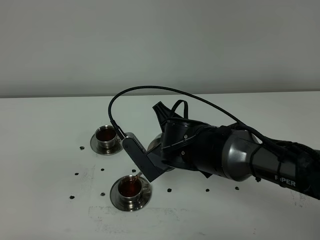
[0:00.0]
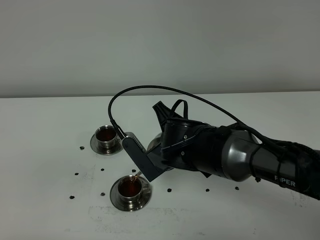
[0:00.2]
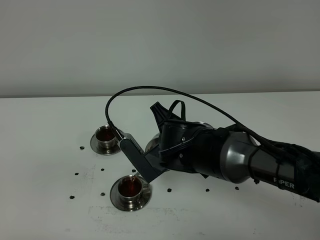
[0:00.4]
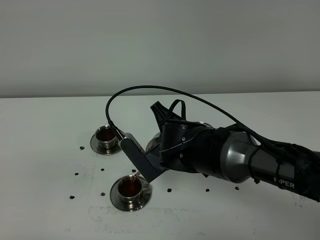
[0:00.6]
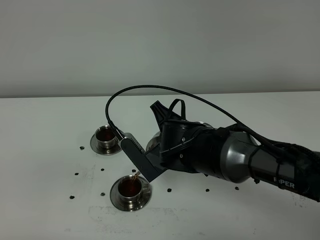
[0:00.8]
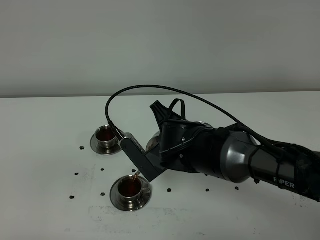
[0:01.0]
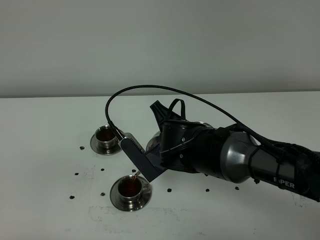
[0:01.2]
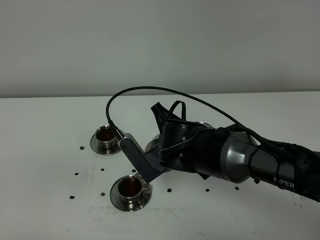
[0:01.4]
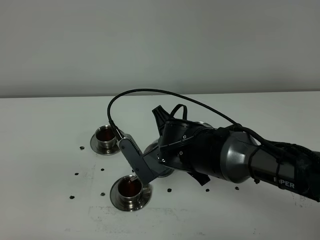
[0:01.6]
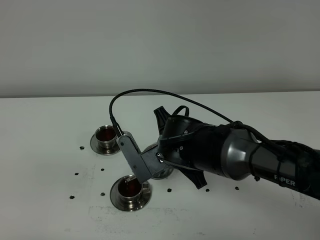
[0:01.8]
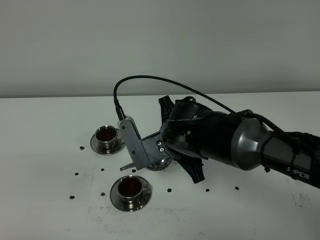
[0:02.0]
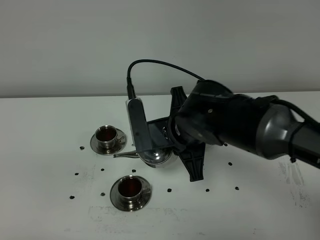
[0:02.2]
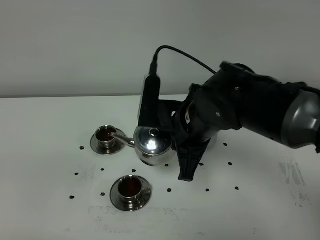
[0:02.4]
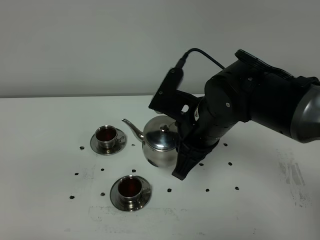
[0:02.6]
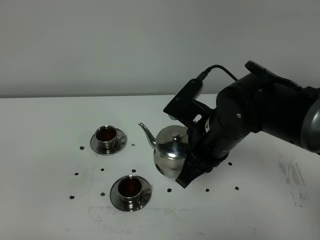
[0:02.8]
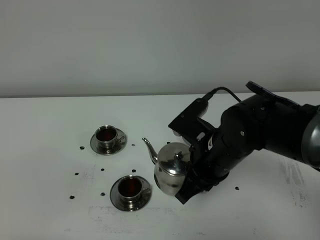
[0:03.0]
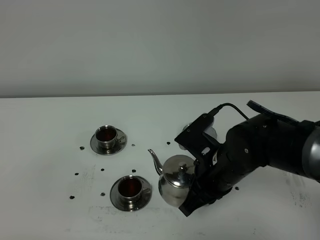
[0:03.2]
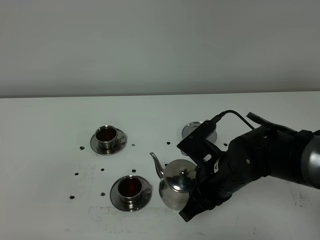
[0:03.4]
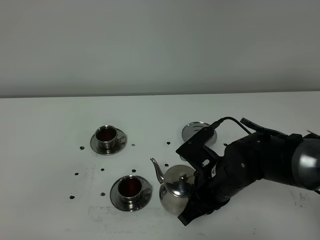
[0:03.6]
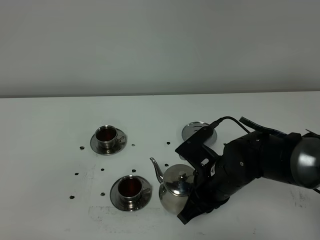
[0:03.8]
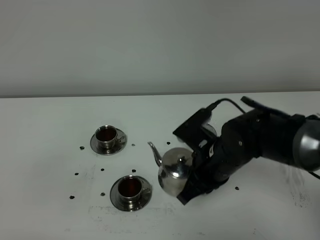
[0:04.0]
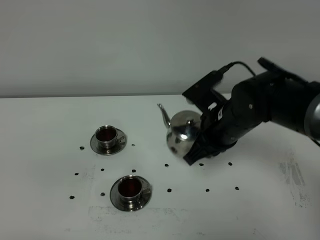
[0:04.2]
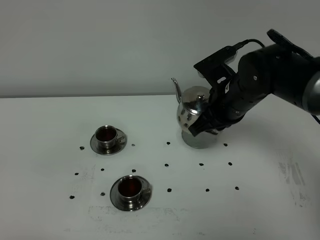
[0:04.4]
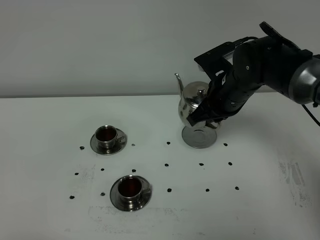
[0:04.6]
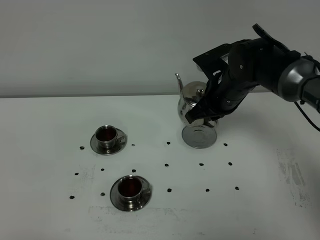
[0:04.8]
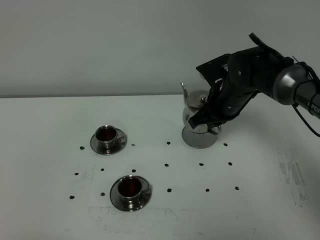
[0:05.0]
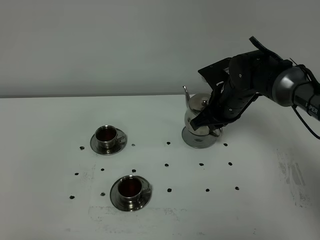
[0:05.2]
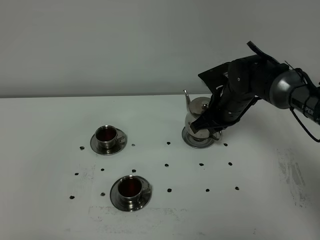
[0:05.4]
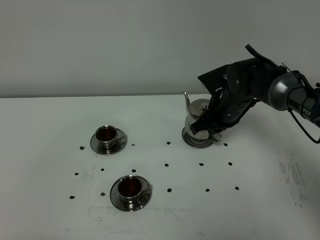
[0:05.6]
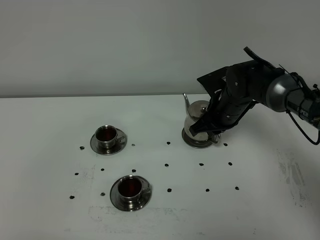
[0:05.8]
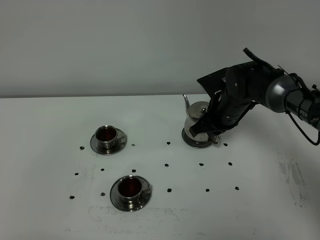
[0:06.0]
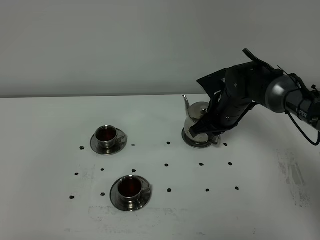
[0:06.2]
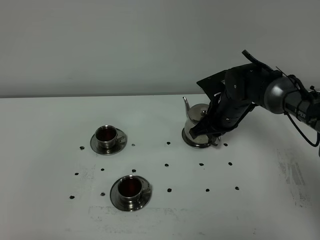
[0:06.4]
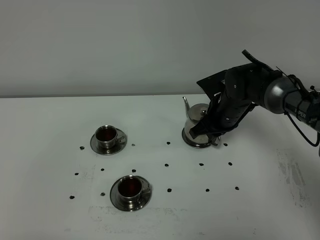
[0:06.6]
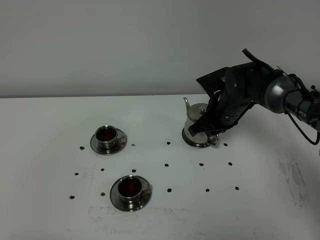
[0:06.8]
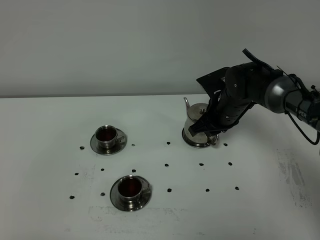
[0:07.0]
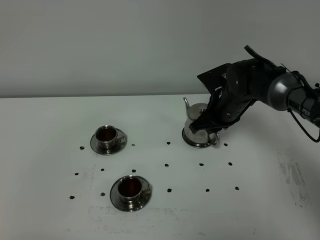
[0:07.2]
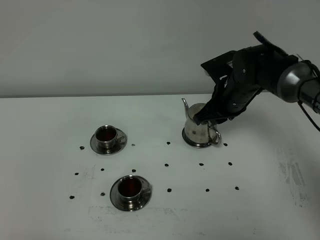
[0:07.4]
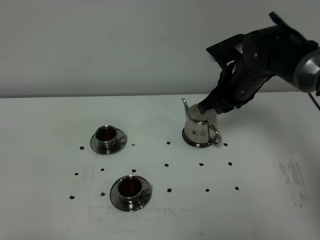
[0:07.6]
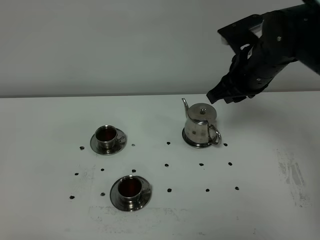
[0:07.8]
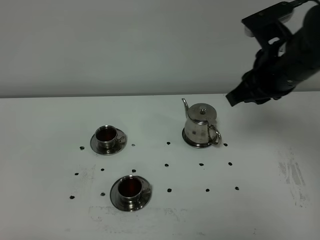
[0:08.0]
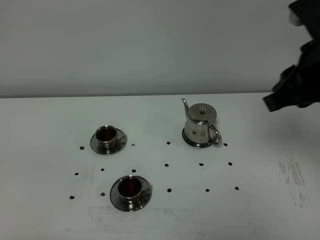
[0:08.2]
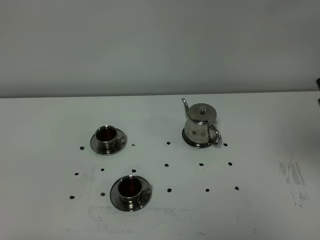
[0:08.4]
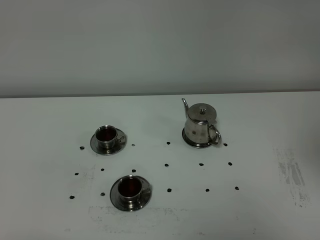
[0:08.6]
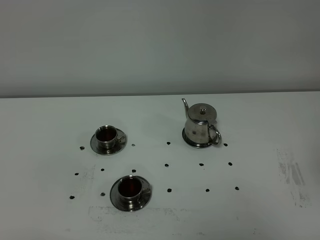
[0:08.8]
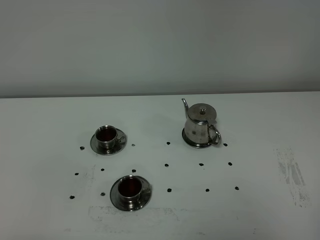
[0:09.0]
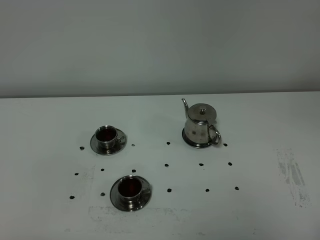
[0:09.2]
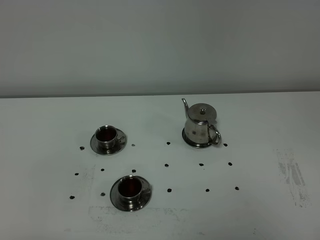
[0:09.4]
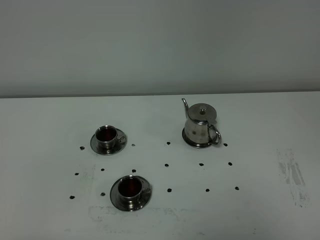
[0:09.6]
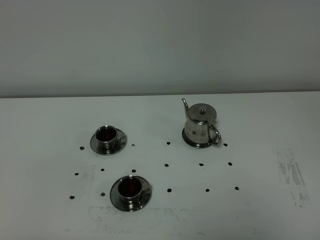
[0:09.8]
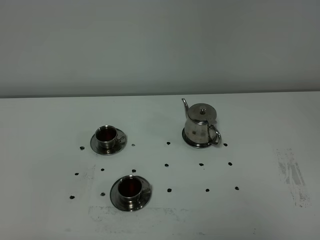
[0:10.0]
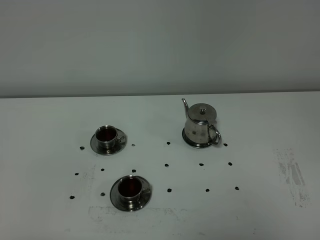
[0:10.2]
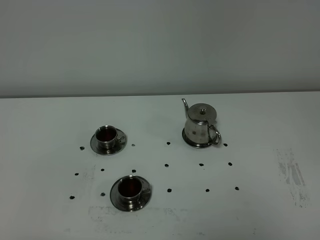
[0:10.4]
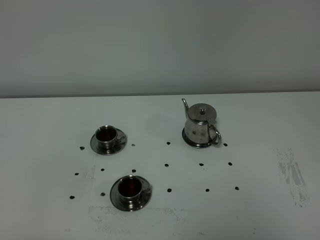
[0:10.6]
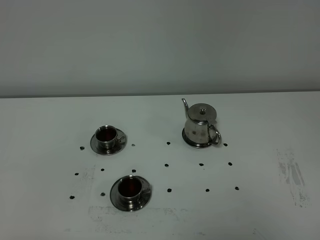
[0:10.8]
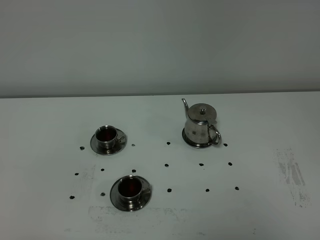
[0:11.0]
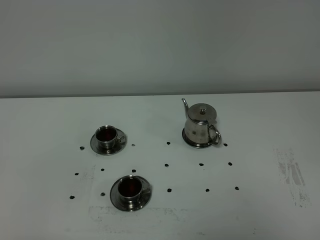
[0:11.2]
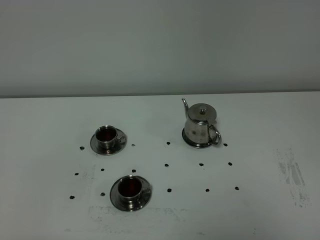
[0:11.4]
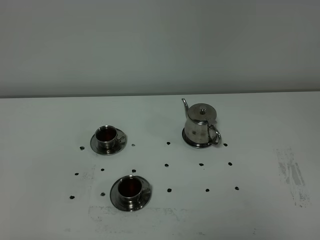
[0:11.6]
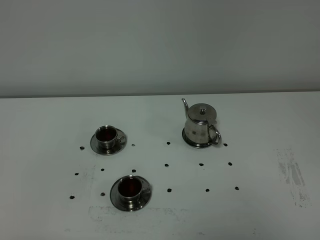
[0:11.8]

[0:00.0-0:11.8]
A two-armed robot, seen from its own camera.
Task of the whole recording: grasp the stainless steel teapot and pour the tea into the two stainless steel teacups one by one, put the stainless steel teapot back in its original place.
0:00.0 to 0:01.4: Both grippers stay about where they are.
0:01.4 to 0:03.0: The right gripper moves to the right, approximately 5 cm.
0:03.0 to 0:04.4: The right gripper is displaced forward by some 10 cm.
0:04.4 to 0:06.0: The right gripper moves downward and forward, roughly 10 cm.
0:06.0 to 0:07.4: The right gripper shifts by about 5 cm, and opens its fingers.
0:07.4 to 0:08.8: The right gripper travels backward, upward and to the right by some 40 cm.
0:10.4 to 0:11.8: Both grippers stay put.

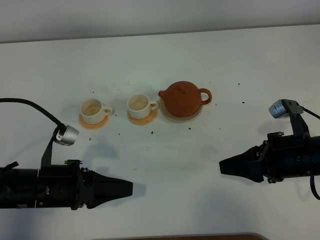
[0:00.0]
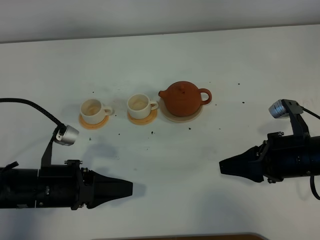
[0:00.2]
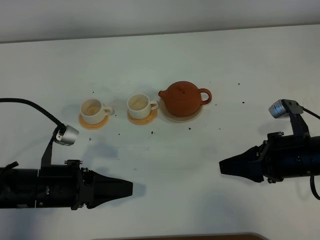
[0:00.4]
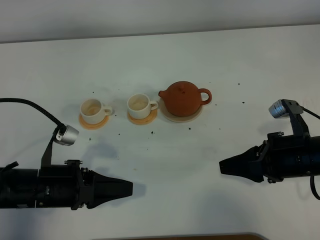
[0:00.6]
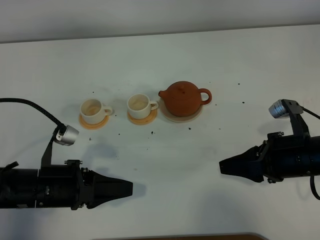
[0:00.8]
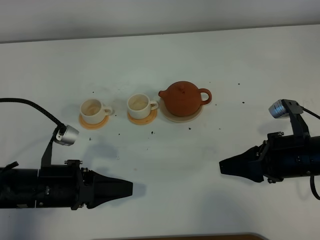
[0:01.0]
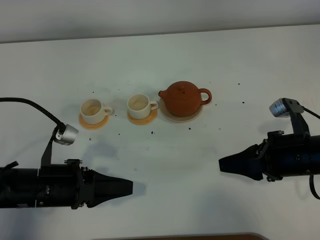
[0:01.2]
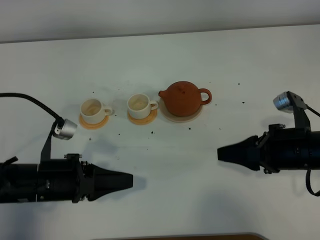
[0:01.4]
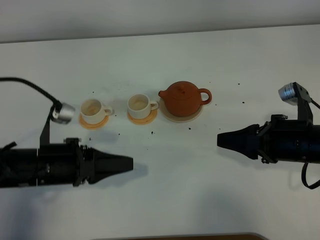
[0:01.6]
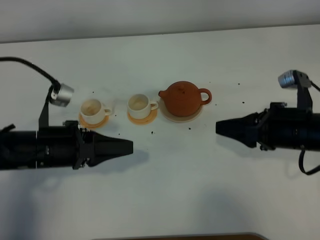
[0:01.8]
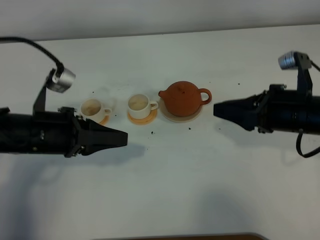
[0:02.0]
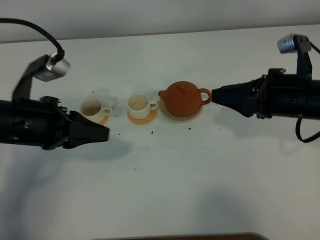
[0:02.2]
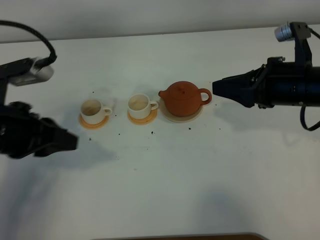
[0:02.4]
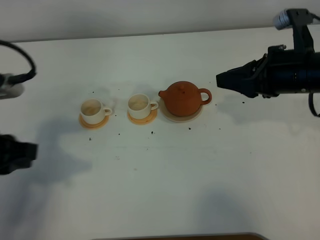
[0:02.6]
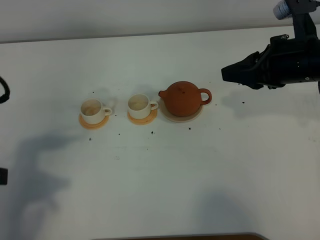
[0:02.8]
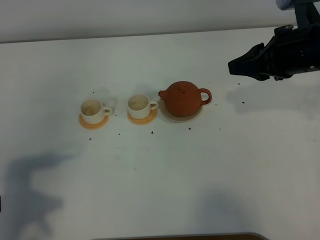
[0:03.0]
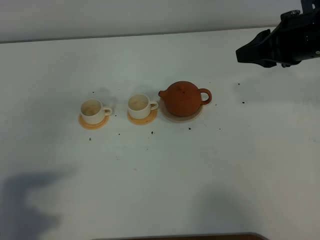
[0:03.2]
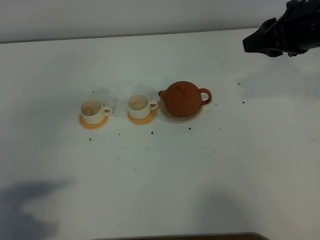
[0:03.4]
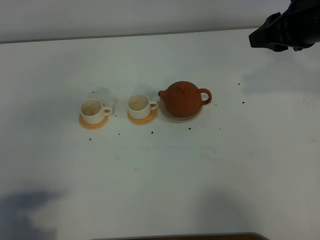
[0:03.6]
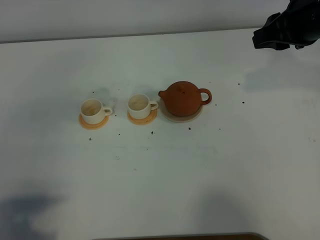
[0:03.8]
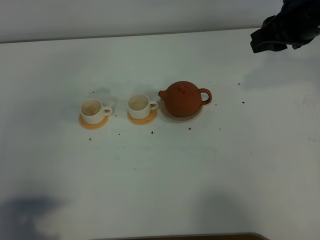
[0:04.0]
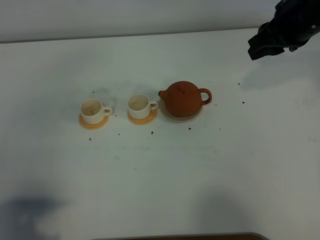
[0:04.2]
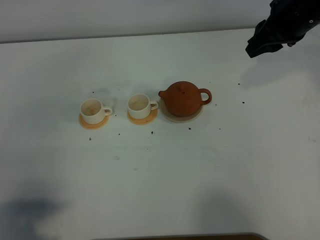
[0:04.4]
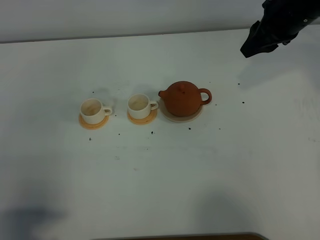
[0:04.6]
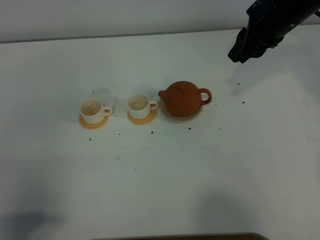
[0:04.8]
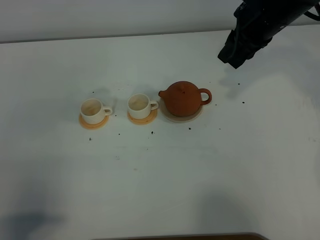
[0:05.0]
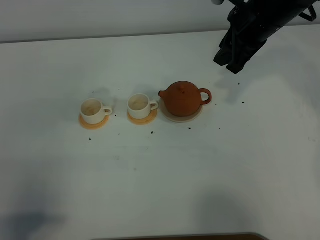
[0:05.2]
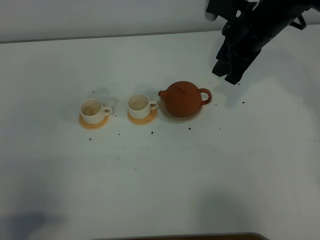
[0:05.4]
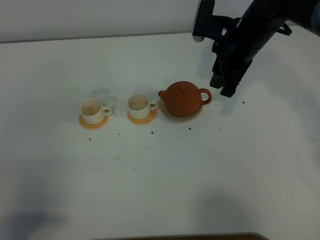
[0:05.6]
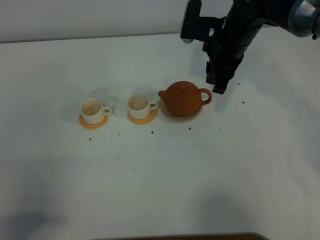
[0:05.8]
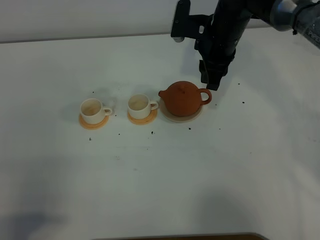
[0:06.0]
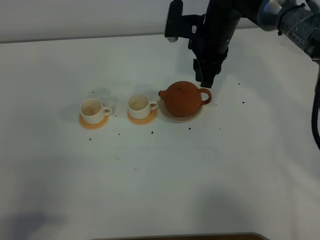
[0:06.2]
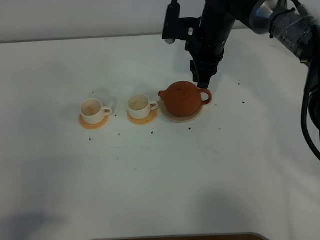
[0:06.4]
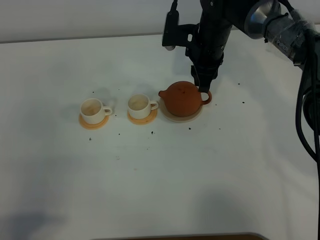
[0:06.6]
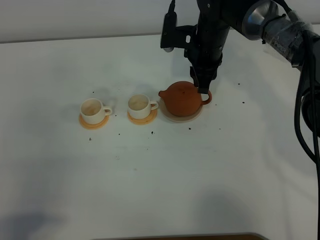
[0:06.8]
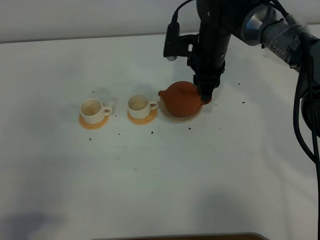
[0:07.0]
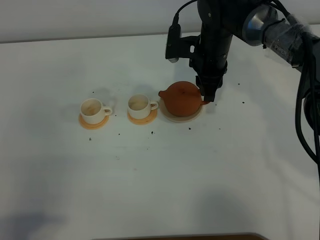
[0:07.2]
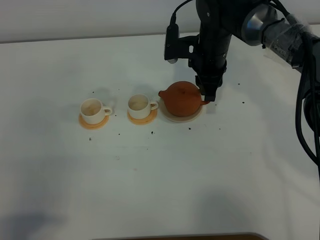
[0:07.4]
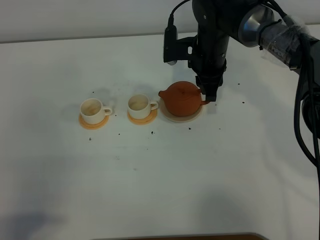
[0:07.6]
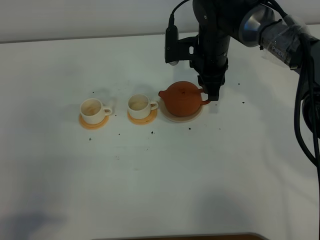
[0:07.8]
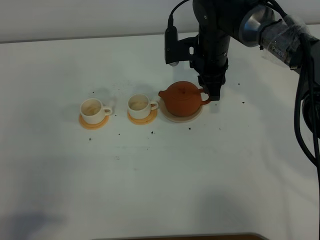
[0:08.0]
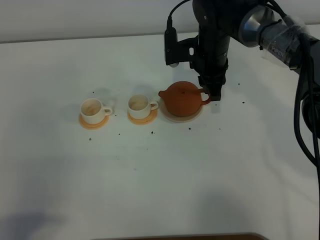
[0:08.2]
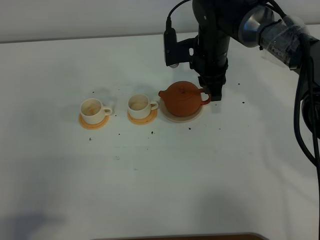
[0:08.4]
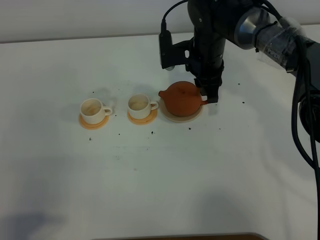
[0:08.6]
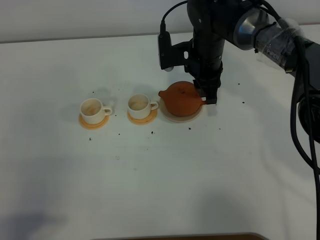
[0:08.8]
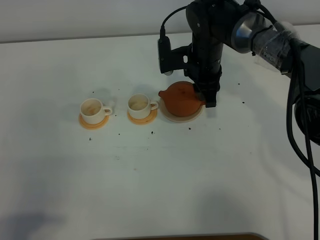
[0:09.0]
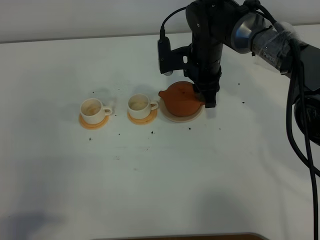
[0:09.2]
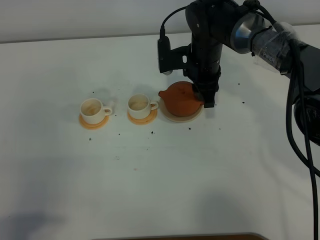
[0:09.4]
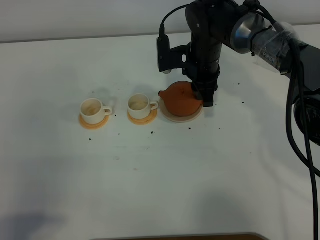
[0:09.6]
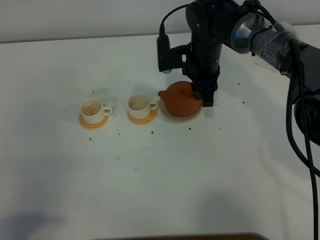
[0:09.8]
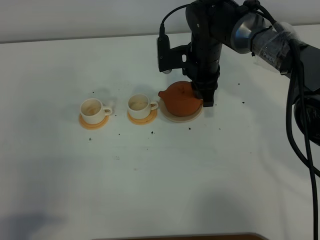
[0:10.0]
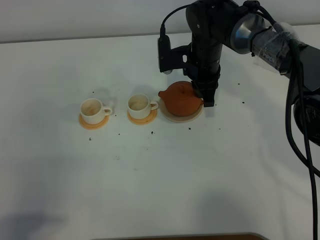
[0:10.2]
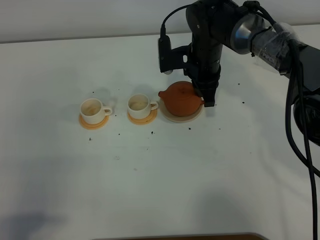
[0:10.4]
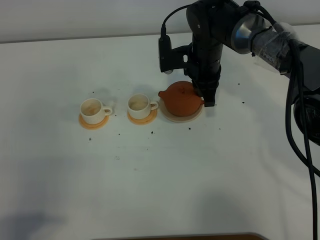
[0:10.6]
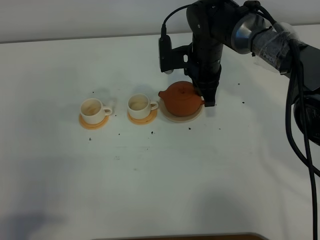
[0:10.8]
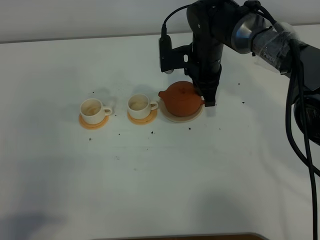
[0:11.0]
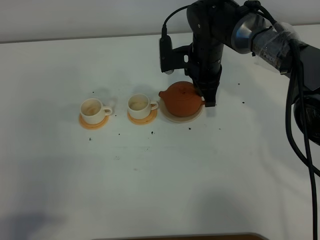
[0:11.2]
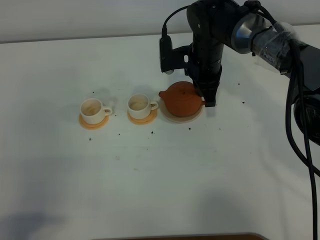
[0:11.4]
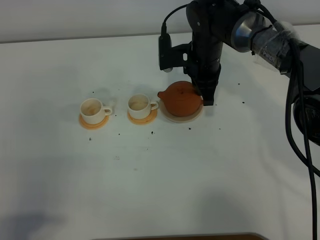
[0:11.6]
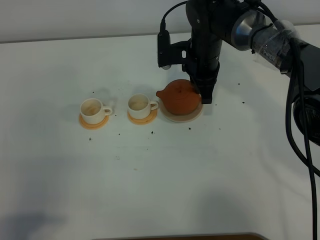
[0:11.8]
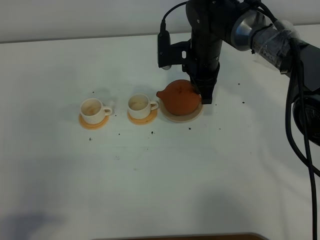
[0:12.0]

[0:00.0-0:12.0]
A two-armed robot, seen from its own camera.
Task of the whole recording: grasp the brown teapot and pour the tea into the two white teacups one by one, put the brown teapot back in its original place.
0:00.0 to 0:01.6: The grippers stay close to where they were, moving slightly.
0:01.6 to 0:03.0: The left gripper shifts about 15 cm upward, backward and to the left. Meanwhile the right gripper goes some 15 cm upward and forward.
0:03.0 to 0:04.4: The left gripper goes approximately 10 cm backward. Meanwhile the right gripper is displaced forward by approximately 10 cm.
0:04.4 to 0:06.0: The right gripper is displaced to the left and downward by roughly 15 cm.
0:06.0 to 0:07.6: The right gripper moves approximately 5 cm.
0:07.6 to 0:09.0: The grippers stay close to where they were, moving slightly.
0:09.0 to 0:10.4: The right gripper closes.
0:10.4 to 0:12.0: Both grippers stay about where they are.
